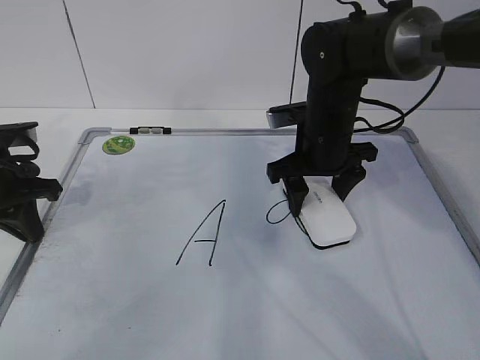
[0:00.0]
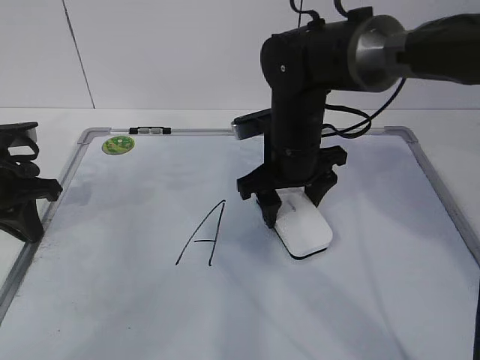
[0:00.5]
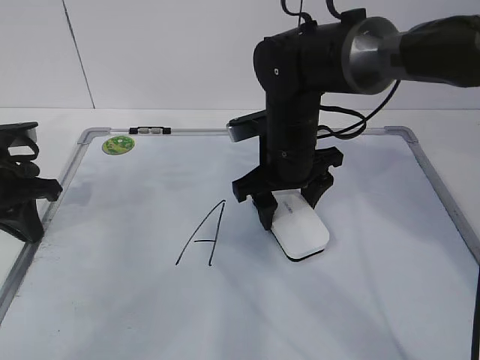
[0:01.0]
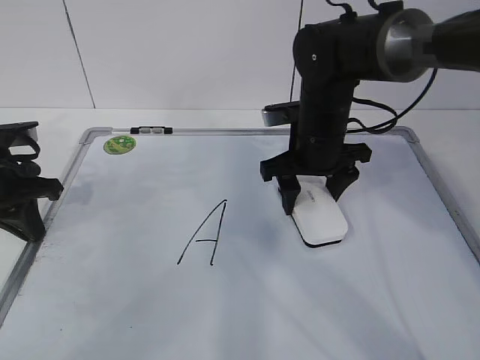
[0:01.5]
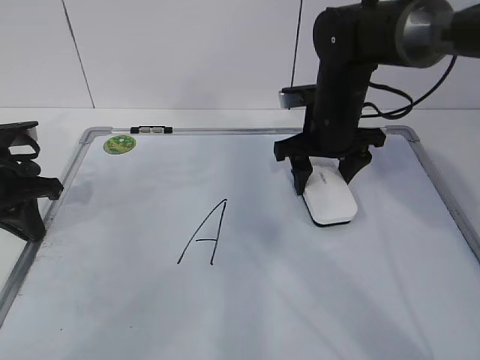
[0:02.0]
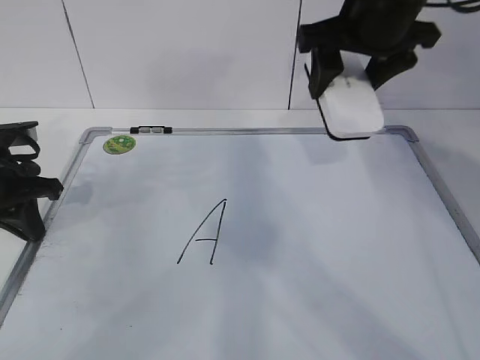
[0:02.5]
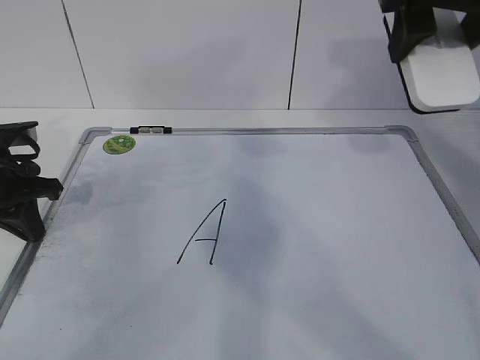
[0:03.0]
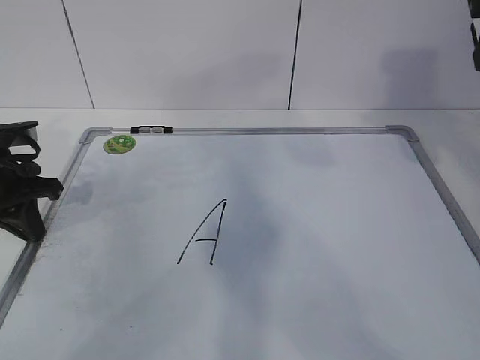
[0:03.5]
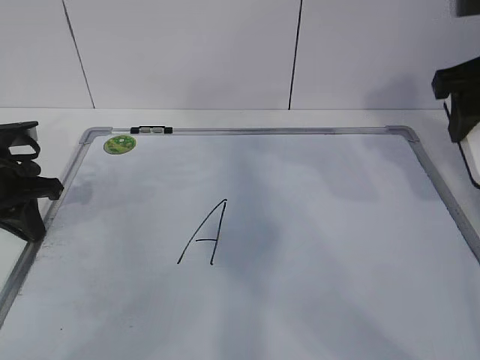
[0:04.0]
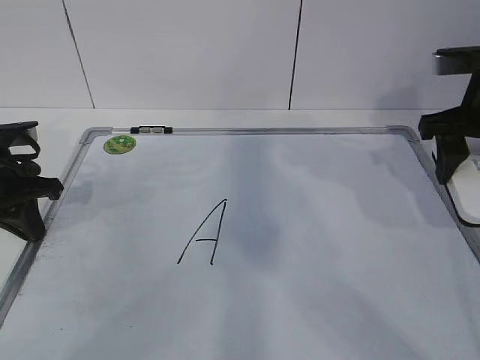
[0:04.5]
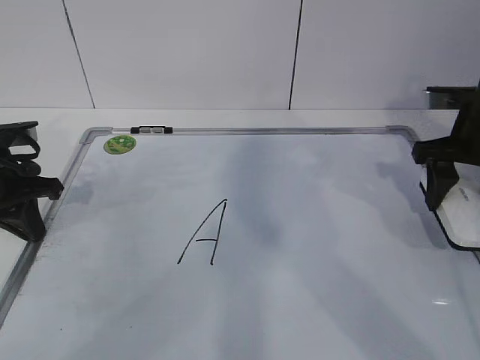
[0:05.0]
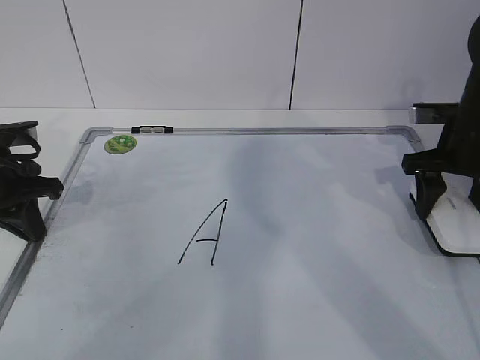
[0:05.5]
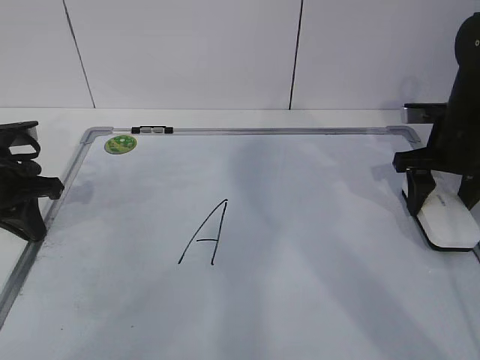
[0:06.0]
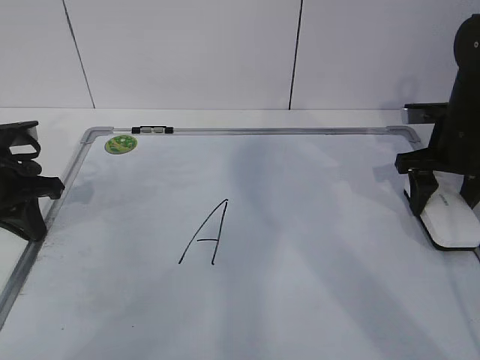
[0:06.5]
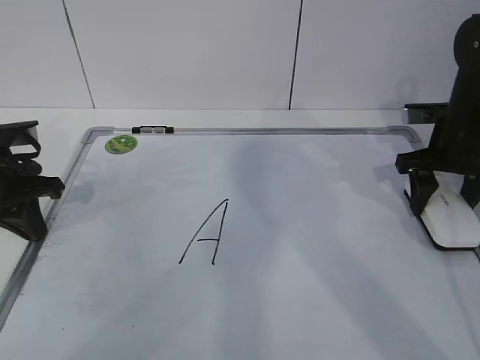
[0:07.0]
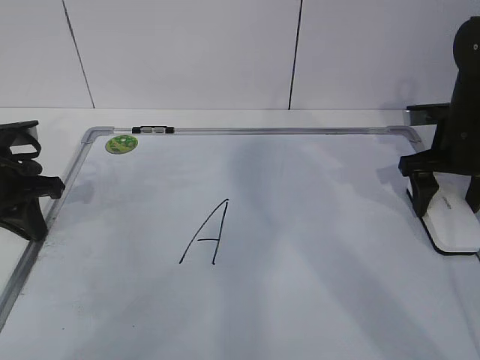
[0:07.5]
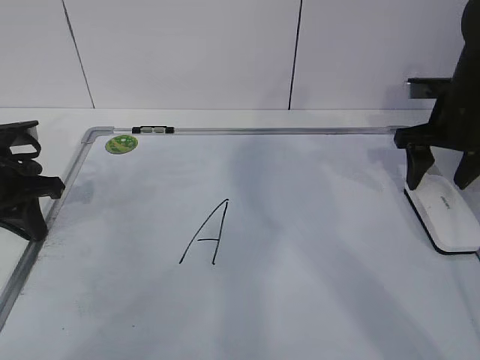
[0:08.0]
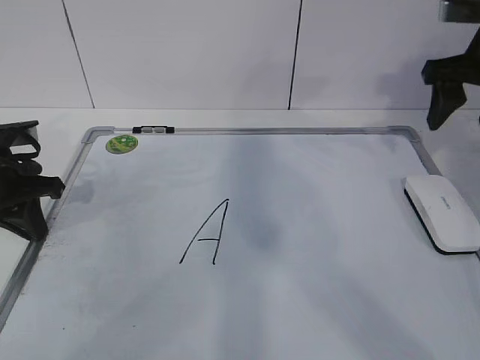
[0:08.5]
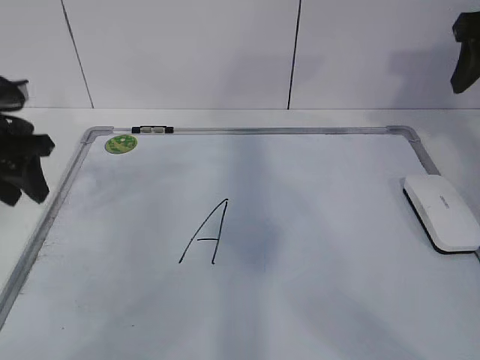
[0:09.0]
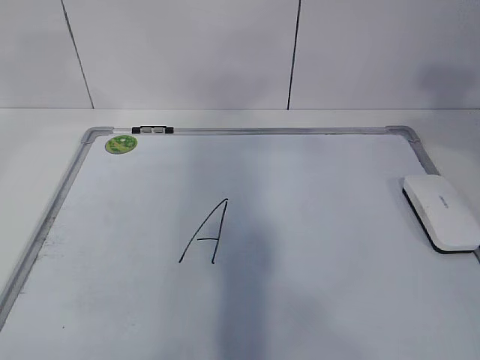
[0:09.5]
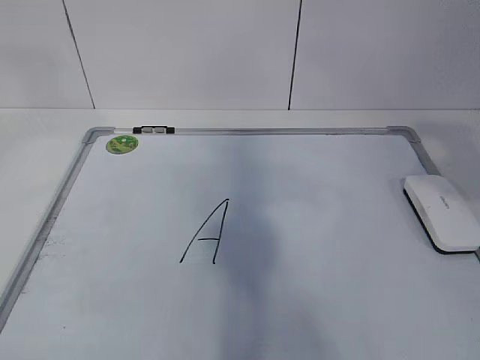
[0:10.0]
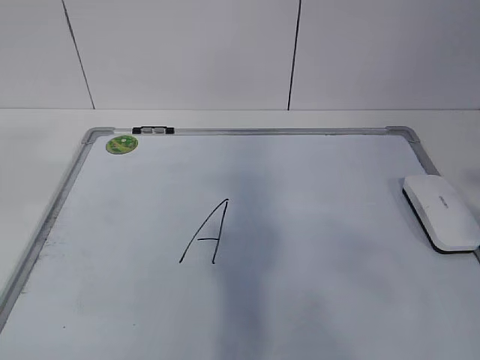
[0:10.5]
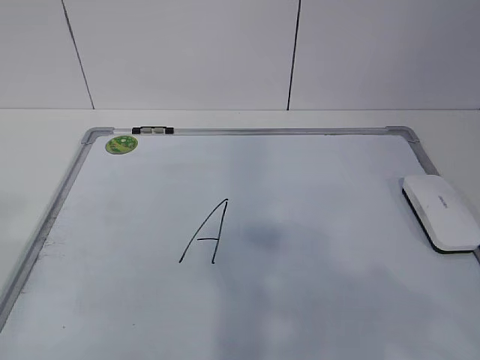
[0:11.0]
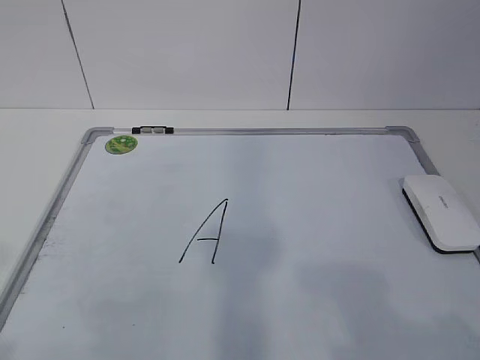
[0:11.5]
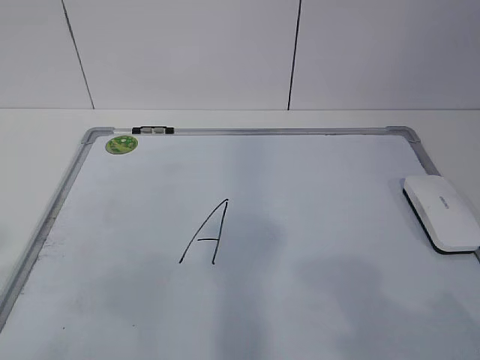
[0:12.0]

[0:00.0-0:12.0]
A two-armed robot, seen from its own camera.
Task of the whole recording: pick up the eraser on the blackboard and erase the letter "a".
Step, 0:00.0 to 0:03.0: Put down the eraser with your right hand.
0:00.0 to 0:02.0: The grippers move only a little.
0:02.0 to 0:04.0: The right gripper moves upward, to the right and backward, approximately 20 cm.
0:04.0 to 0:06.0: The right gripper shifts some 15 cm downward and forward.
0:06.0 to 0:08.0: The right gripper opens.
0:08.0 to 0:10.0: The left gripper is displaced upward and backward by about 40 cm, and opens its fingers. Meanwhile the right gripper is displaced backward and upward by about 35 cm.
0:10.0 to 0:12.0: Both grippers travel together downward and backward, roughly 20 cm.

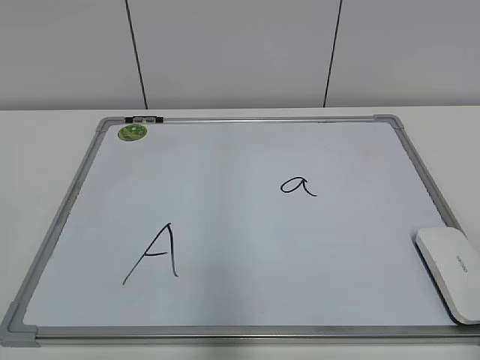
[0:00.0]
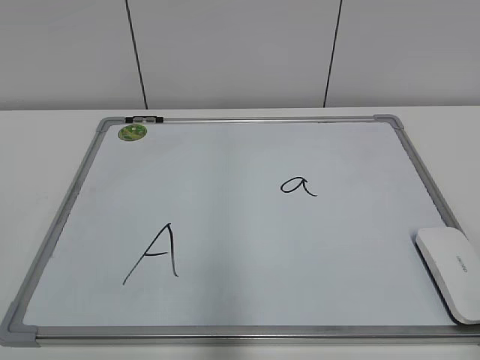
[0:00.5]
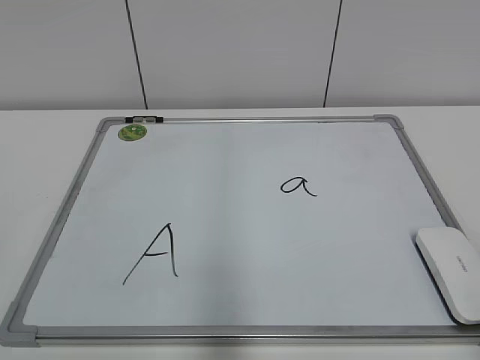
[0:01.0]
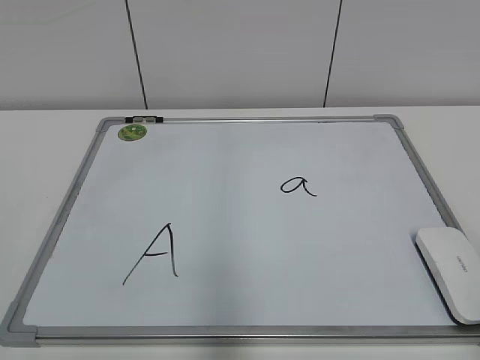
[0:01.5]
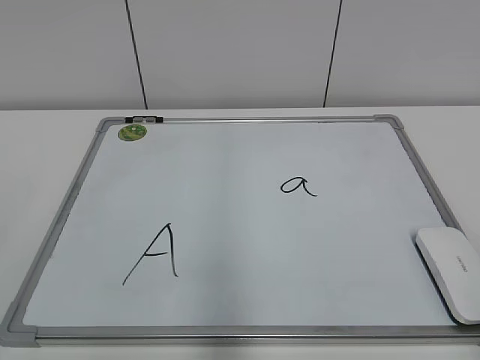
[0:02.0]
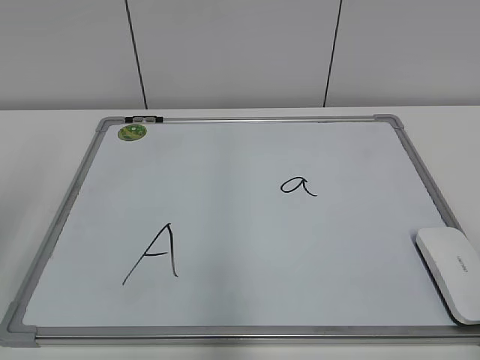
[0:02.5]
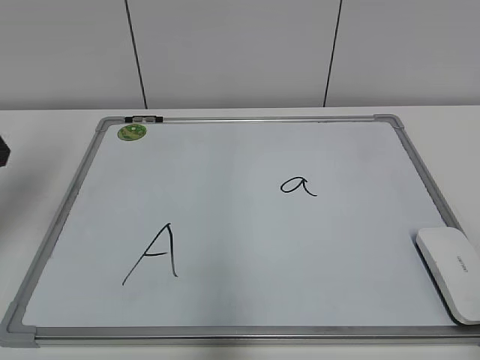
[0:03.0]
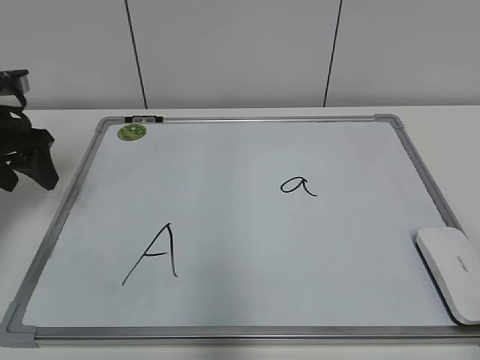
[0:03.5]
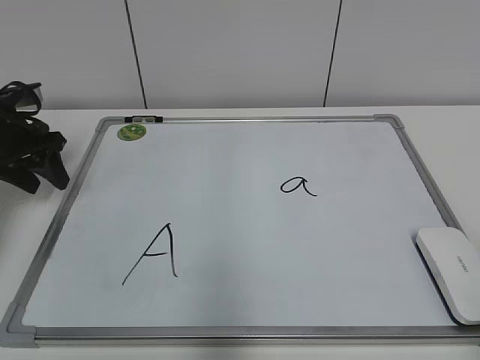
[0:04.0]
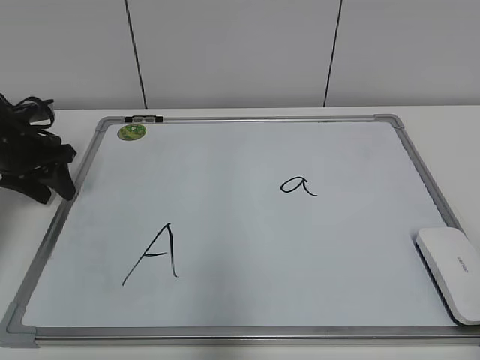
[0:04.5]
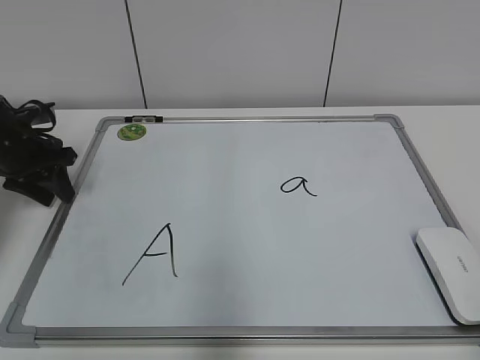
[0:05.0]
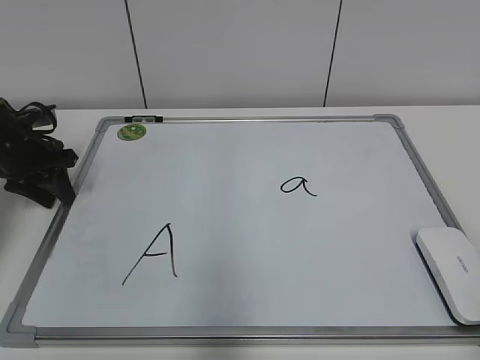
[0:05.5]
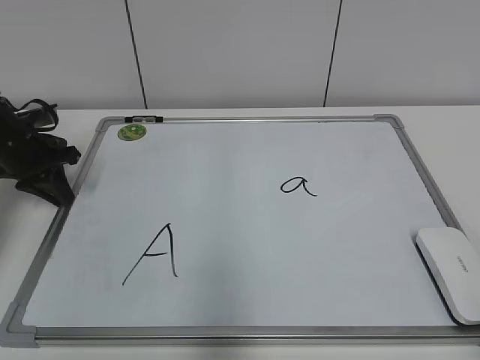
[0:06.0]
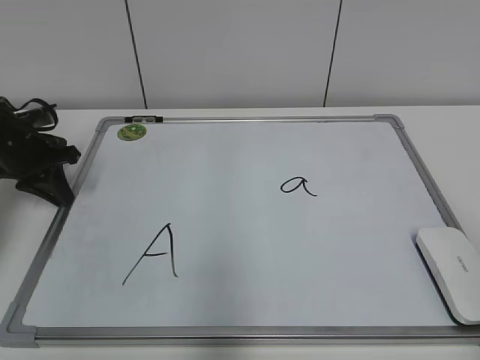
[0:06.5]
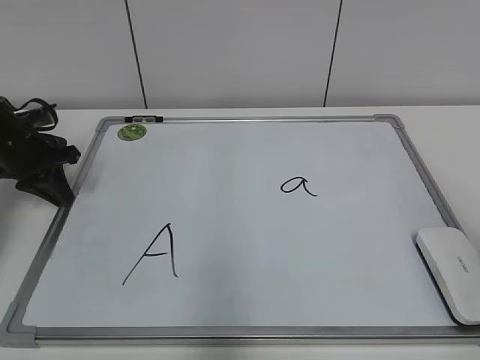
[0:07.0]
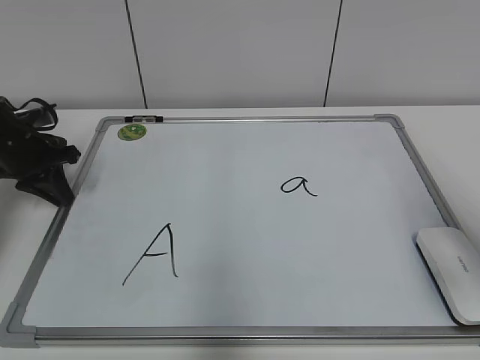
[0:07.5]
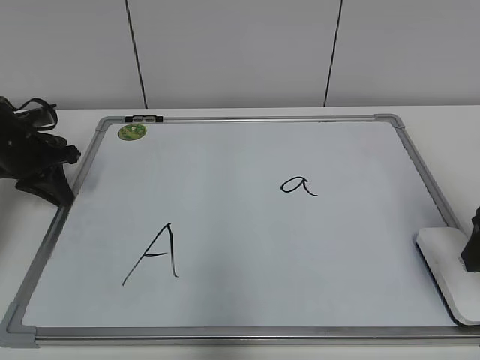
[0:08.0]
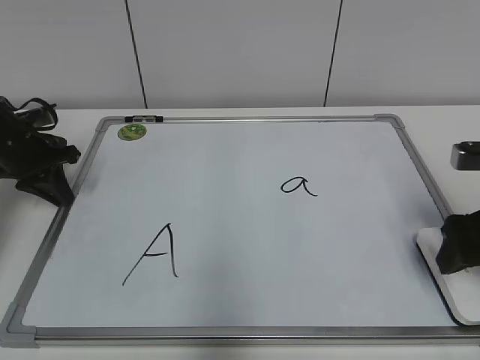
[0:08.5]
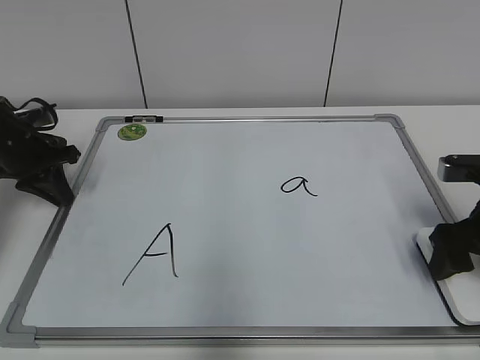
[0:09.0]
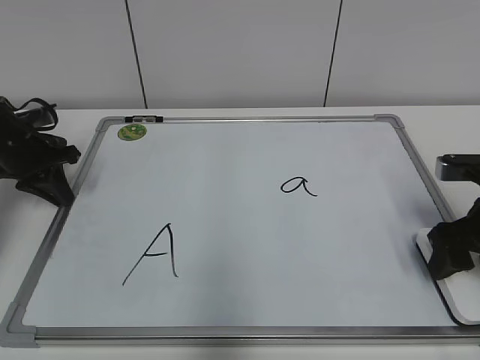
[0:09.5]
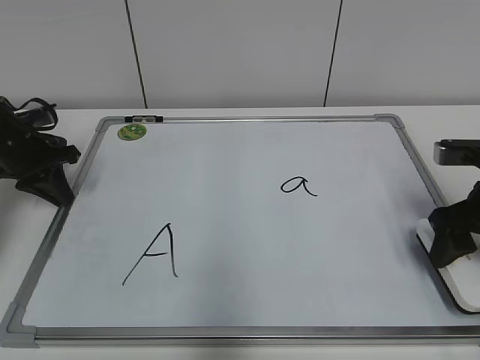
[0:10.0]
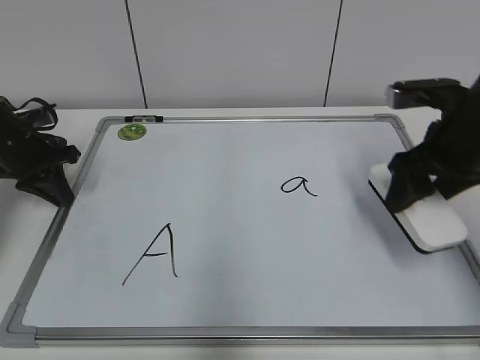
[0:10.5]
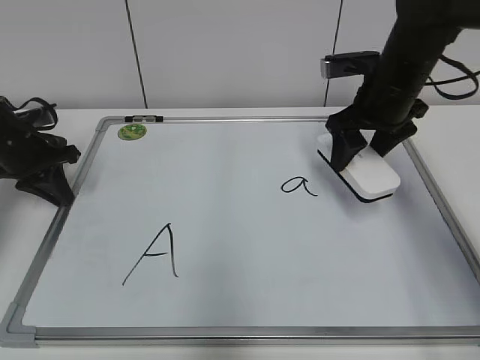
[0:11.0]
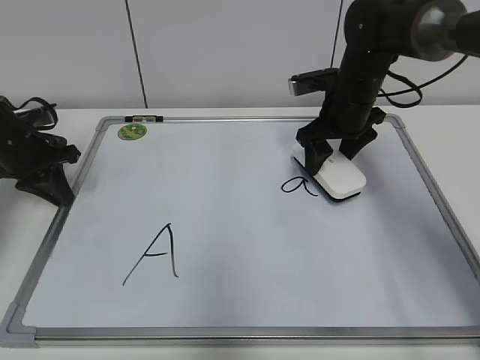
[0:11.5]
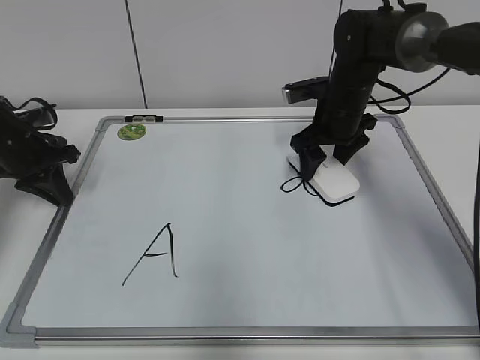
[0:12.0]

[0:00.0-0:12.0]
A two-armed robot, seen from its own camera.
Task of the whole recording: pick up the eraser on the blackboard and erase the letter "a".
Step, 0:00.0 to 0:06.0: Hold the drawing board steady with your left hand.
Step, 0:06.5 to 0:09.5: Grab the eraser with your right hand.
0:02.0 to 0:04.0: The left gripper shifts roughly 40 cm forward, and closes up.
0:04.0 to 0:06.0: The left gripper closes.
0:06.0 to 0:08.0: The right gripper travels forward by roughly 25 cm.
0:08.0 to 0:10.0: The right gripper goes some 10 cm forward and downward.
0:10.0 to 0:12.0: The right gripper travels forward and to the left by about 20 cm.

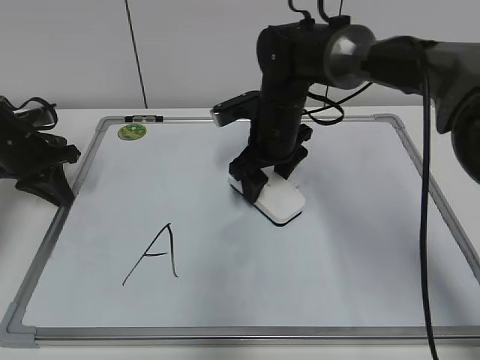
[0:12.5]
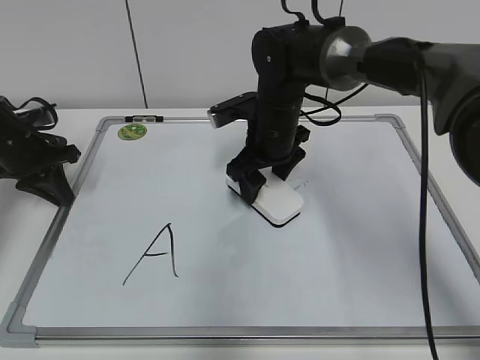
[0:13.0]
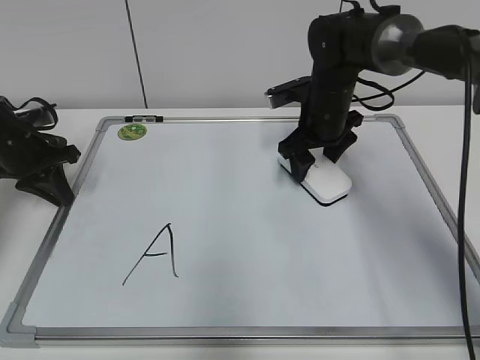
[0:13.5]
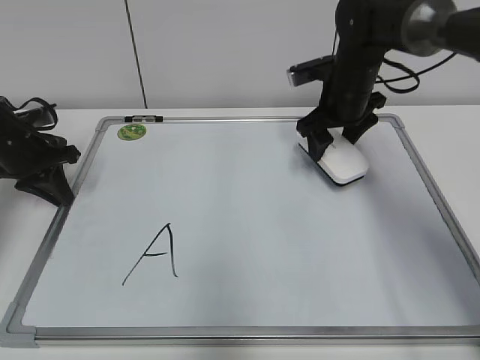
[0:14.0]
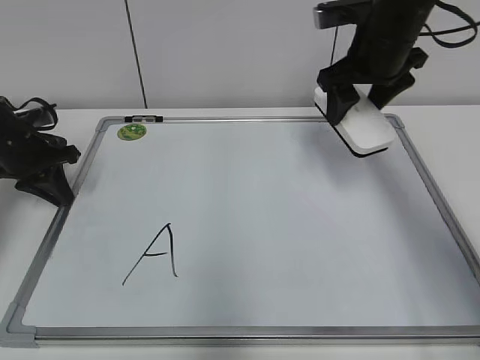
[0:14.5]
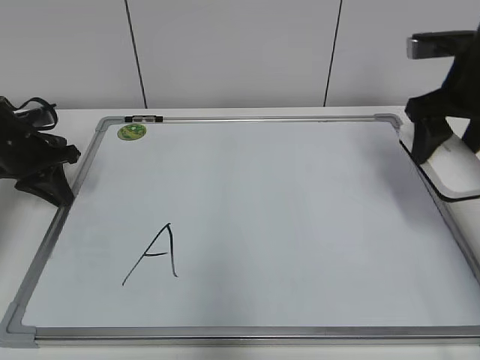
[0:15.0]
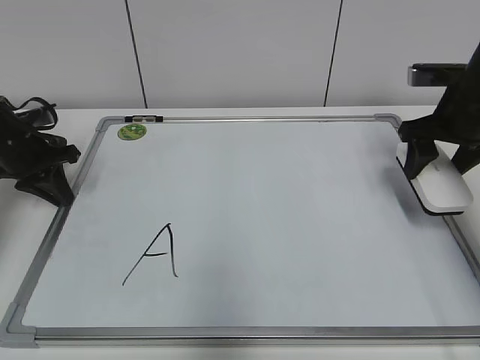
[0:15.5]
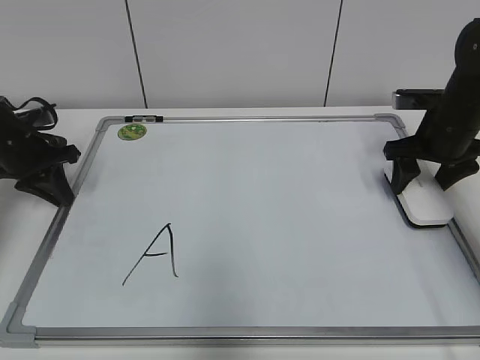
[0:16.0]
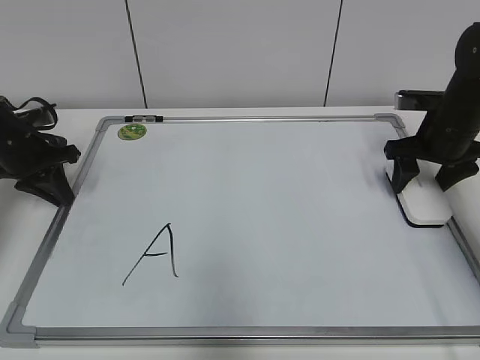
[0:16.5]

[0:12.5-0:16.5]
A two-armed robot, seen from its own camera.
Task of the whole recording: pick up the eraser on the blackboard and erase the letter "a".
0:12.5 to 0:14.5: The right gripper shifts approximately 15 cm to the right and upward.
0:14.5 to 0:16.5: The right gripper goes some 15 cm downward and to the right.
